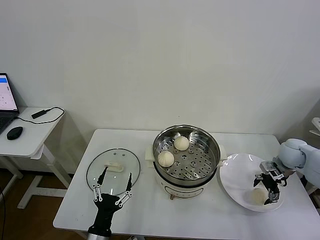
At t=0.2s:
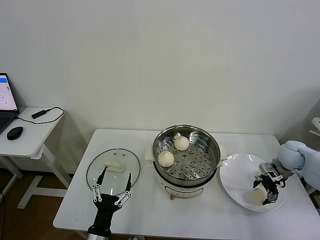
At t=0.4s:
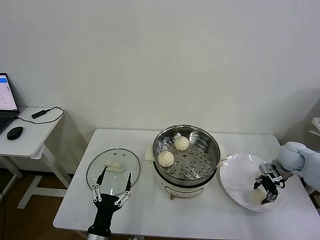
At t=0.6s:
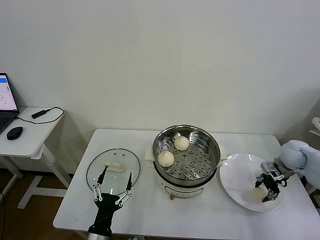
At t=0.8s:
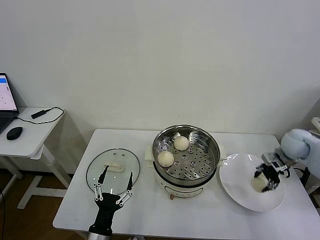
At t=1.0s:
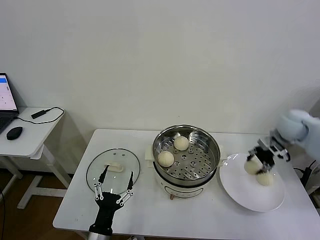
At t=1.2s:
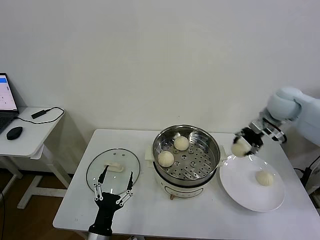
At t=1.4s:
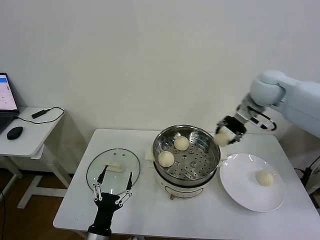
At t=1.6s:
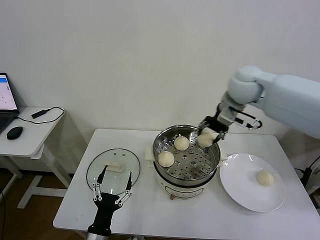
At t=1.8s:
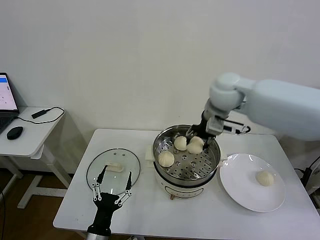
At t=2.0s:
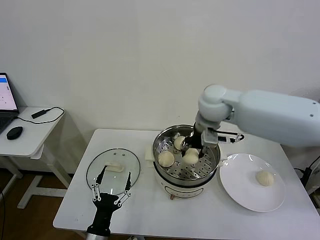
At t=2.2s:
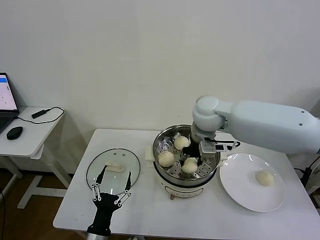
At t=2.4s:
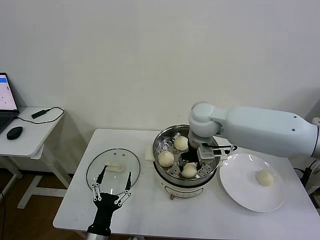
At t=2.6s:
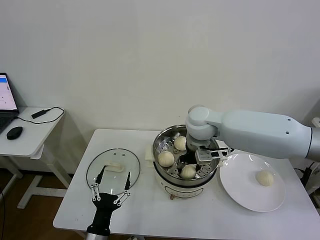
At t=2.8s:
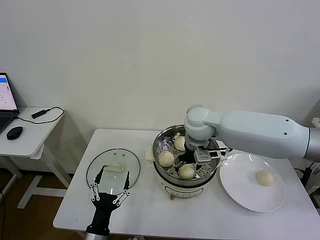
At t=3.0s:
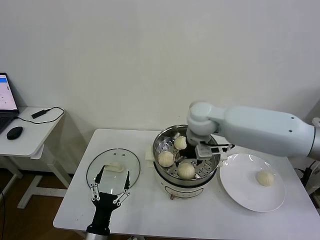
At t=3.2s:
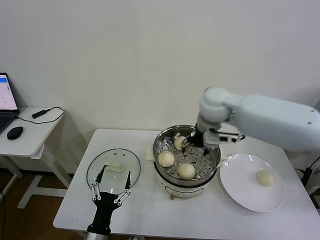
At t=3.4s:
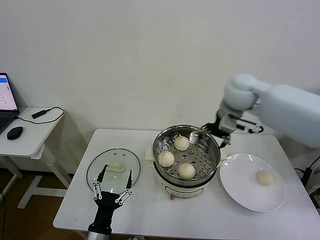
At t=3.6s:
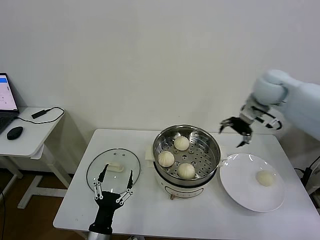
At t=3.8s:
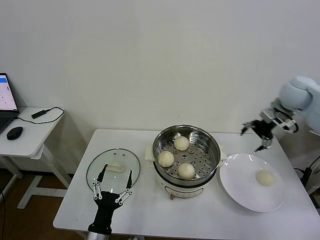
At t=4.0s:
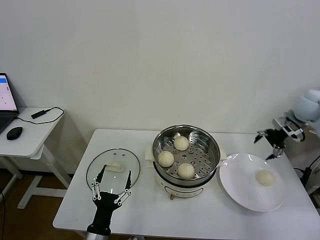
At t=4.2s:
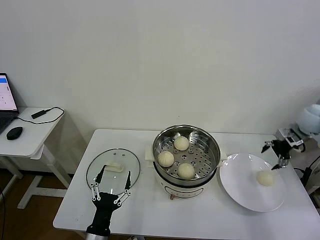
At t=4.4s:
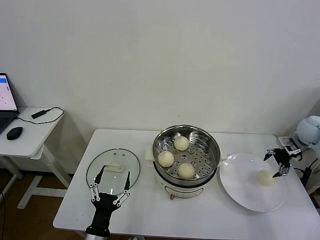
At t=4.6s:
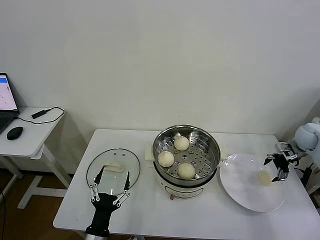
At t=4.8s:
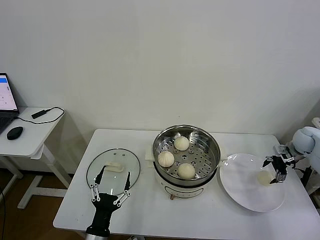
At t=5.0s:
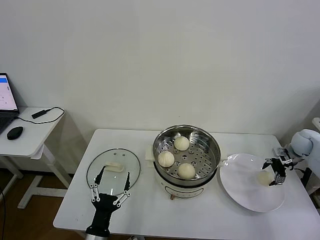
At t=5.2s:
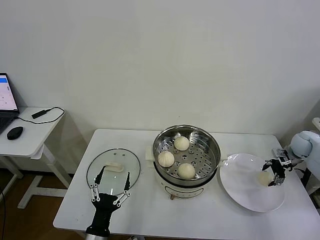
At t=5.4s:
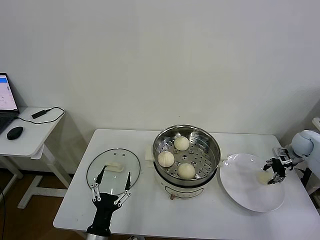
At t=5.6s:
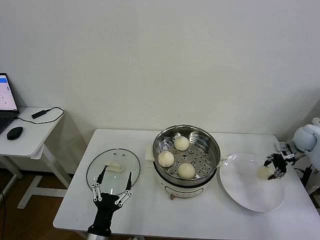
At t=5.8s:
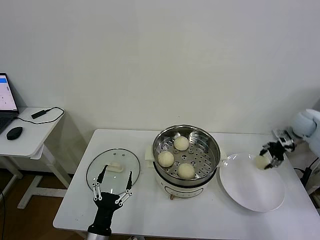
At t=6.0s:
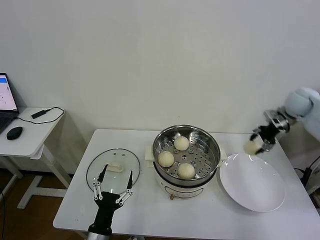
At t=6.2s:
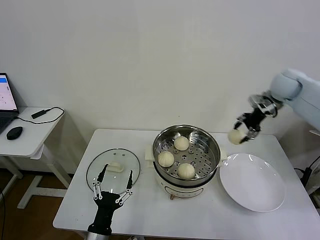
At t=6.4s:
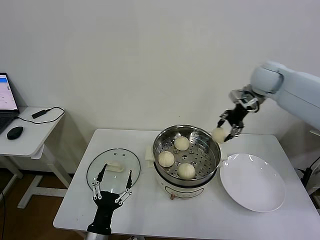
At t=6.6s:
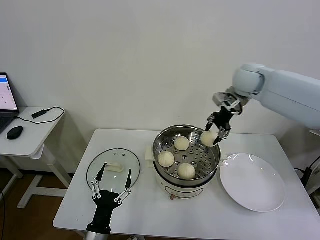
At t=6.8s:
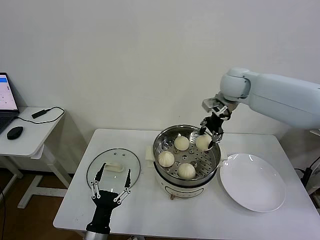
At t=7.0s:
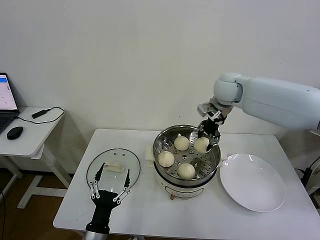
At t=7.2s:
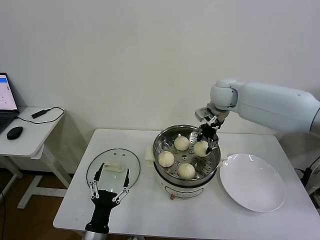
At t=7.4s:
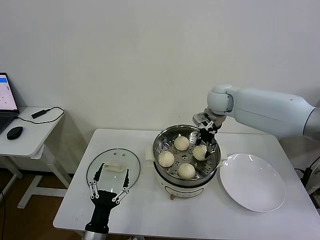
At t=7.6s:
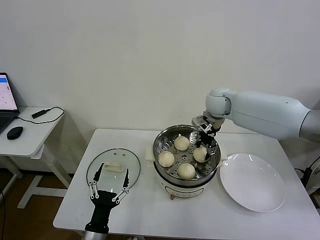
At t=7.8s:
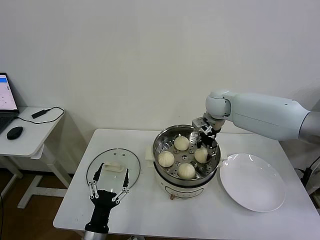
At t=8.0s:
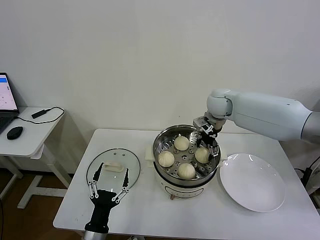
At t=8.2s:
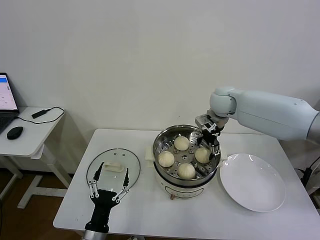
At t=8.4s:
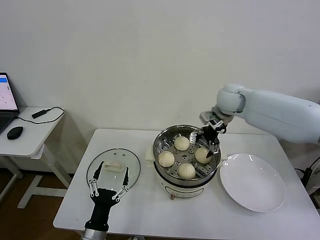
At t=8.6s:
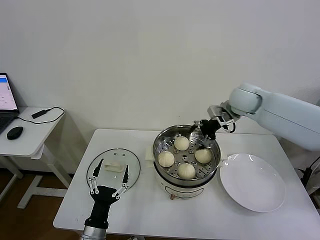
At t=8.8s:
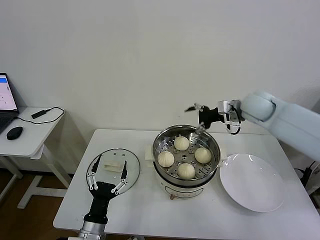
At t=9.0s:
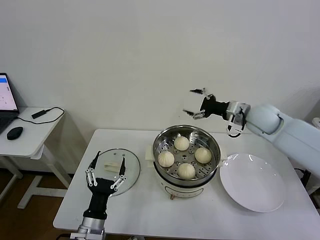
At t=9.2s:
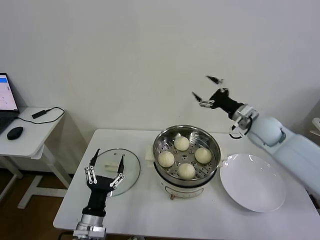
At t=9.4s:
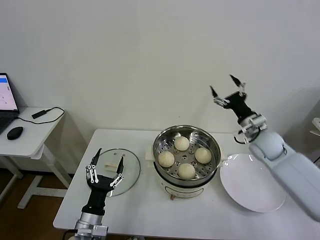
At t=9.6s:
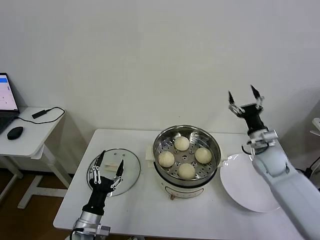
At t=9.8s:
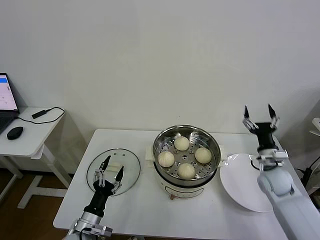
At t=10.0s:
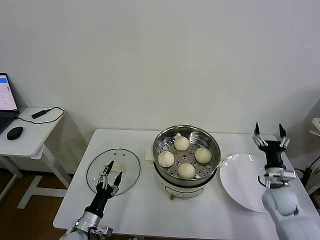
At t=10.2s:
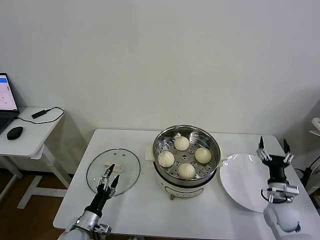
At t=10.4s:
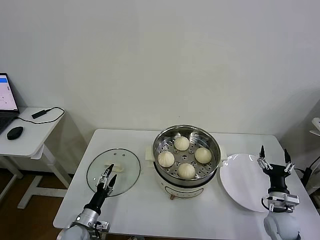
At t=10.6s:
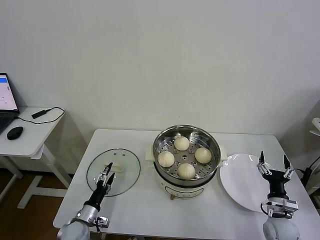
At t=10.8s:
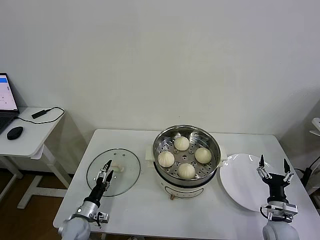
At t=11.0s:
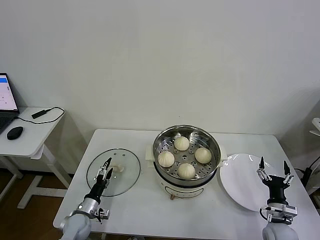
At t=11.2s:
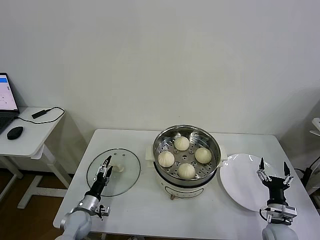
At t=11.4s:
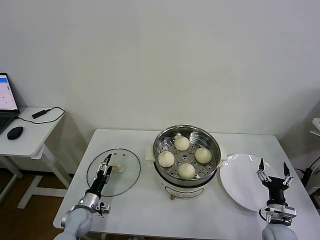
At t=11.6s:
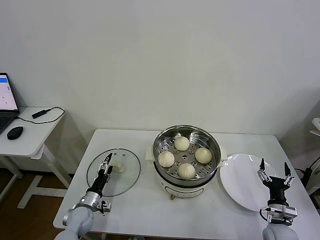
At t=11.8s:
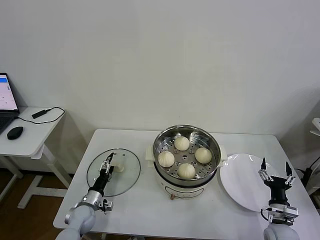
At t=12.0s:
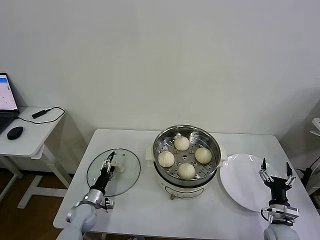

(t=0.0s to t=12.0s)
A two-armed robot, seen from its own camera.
Task of the whole recording: take steamed baozi put them in steamer then cover it.
Step, t=0.6s - t=2.8s: Place the baozi on the steamer with right gripper.
Step, t=3.0s - t=5.4s: Grasp the baozi in the plate with right gripper.
Step, t=5.6s - t=7.8s: Place the baozi on the steamer with right gripper.
t=0.0s - t=1.6s: The right gripper moves to the left and upward, some 35 cm, and closes.
t=1.6s - t=3.0s: The right gripper heads to the left and downward, covering about 10 cm, and opens up.
t=3.0s - t=4.4s: The right gripper goes roughly 40 cm to the right.
t=4.4s - t=6.0s: The right gripper moves upward, to the left and forward, about 15 cm, and closes.
t=6.0s - t=7.6s: The right gripper travels to the left by approximately 25 cm.
t=7.6s - t=9.0s: The right gripper is displaced to the right and backward by approximately 15 cm, and opens its fingers.
t=9.0s - t=10.4s: The right gripper moves downward and backward, some 35 cm; the left gripper is displaced downward, to the left and forward by roughly 15 cm.
t=10.4s - t=12.0s: The left gripper goes about 10 cm forward.

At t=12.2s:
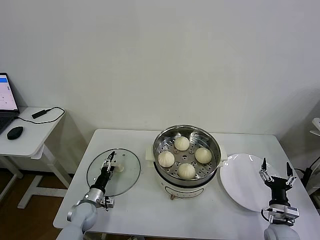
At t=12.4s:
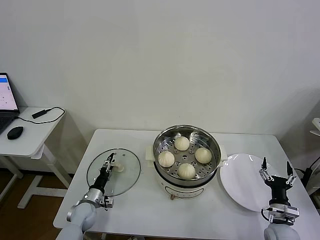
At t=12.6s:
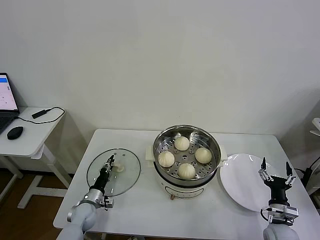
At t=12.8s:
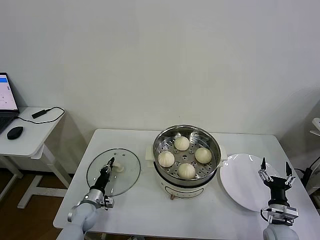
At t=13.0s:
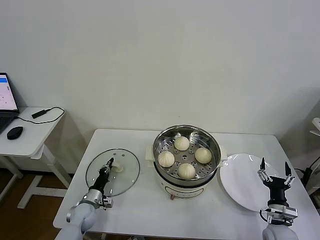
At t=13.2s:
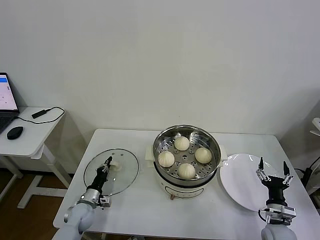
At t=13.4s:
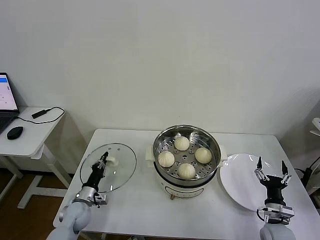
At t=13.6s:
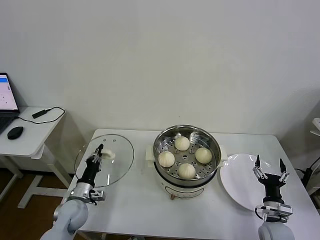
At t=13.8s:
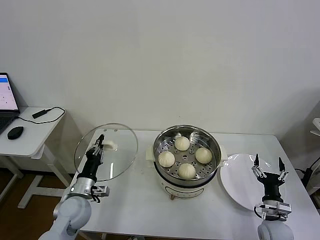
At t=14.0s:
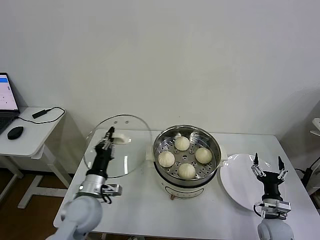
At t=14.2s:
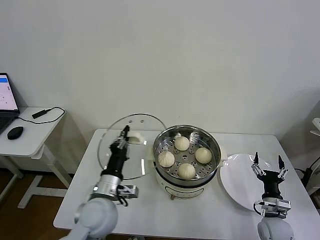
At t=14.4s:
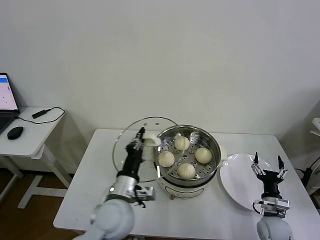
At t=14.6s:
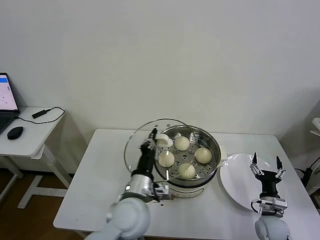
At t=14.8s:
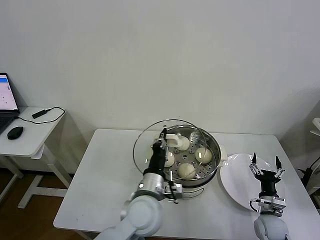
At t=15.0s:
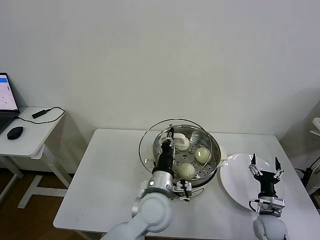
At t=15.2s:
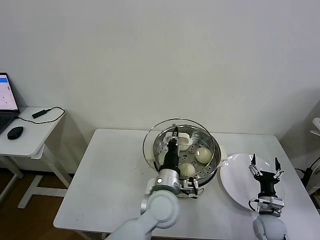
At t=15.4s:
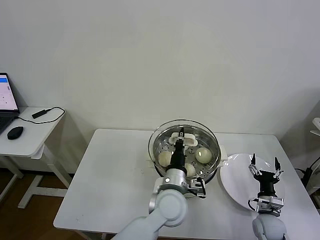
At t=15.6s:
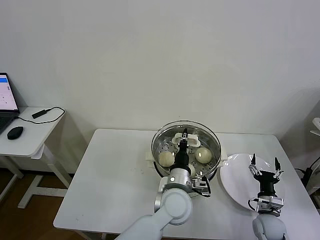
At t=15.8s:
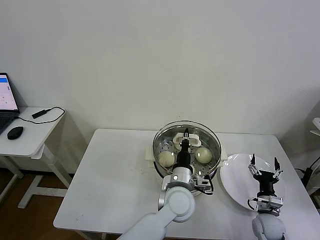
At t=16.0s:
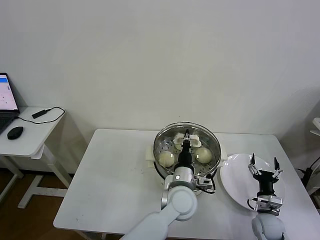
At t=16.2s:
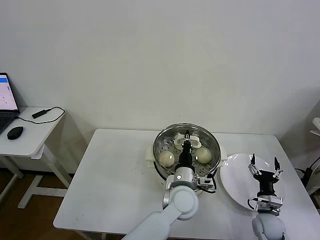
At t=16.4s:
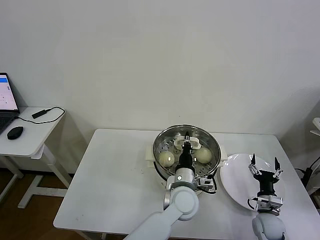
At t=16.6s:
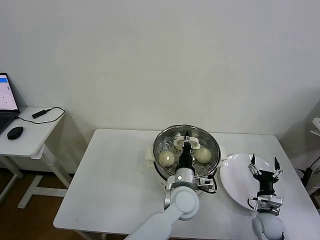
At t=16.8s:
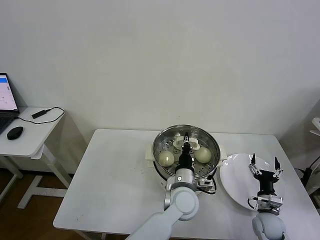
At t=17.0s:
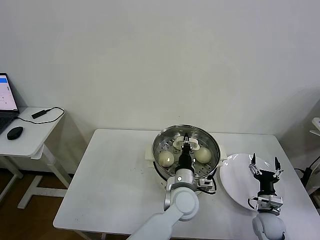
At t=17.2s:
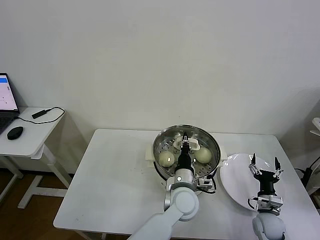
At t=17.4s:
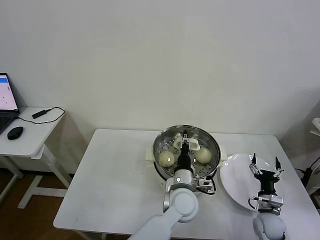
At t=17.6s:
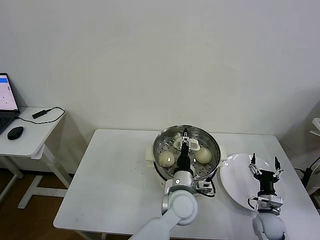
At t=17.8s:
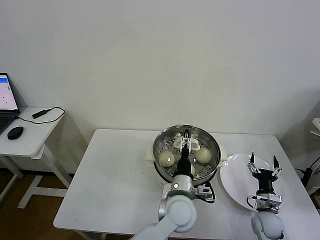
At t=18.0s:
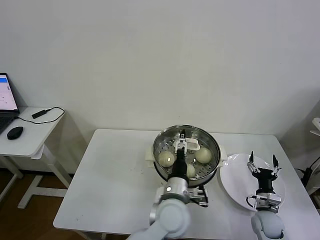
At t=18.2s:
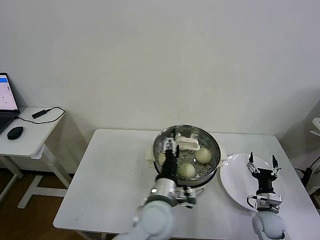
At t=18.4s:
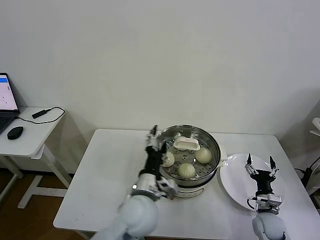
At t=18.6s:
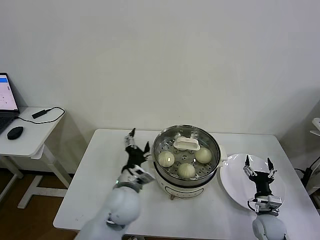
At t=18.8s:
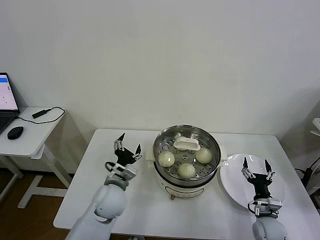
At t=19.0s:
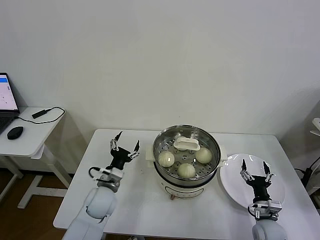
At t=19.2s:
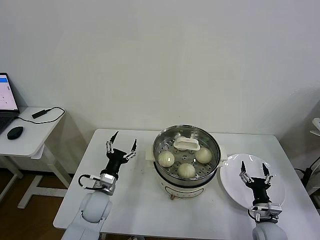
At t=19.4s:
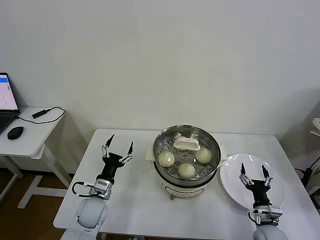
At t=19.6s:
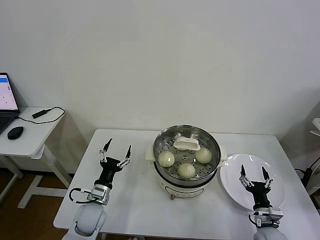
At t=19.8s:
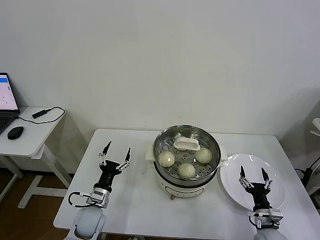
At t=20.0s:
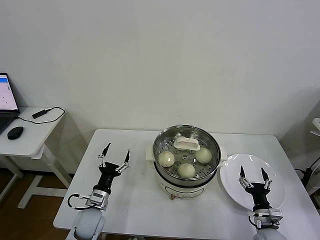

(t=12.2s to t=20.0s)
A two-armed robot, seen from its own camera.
Task of the whole recording: take steamed baozi put them in steamer then cover it.
Step, t=13.0s - t=17.2s: Place the pot lid on the steamer with left gripper.
t=12.2s - t=13.8s: The left gripper shifts roughly 15 cm upward, and closes.
t=13.8s - t=15.4s: The left gripper moves to the right, roughly 30 cm.
t=15.4s - t=16.8s: The left gripper ends up some 5 cm from where it was.
t=16.8s - t=18.4s: The left gripper goes some 15 cm to the left, upward and backward, and opens up.
t=18.4s - t=20.0s: The left gripper shifts some 25 cm to the left and downward. Meanwhile the right gripper shifts roughly 5 cm backward.
